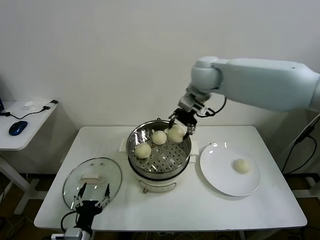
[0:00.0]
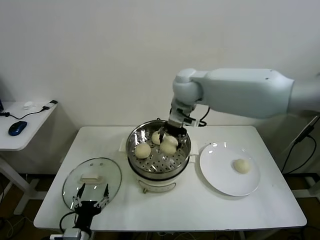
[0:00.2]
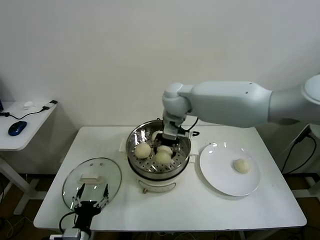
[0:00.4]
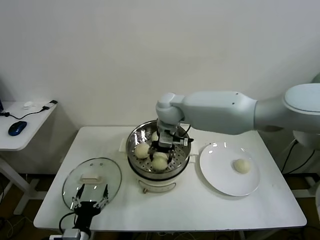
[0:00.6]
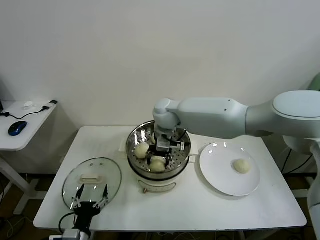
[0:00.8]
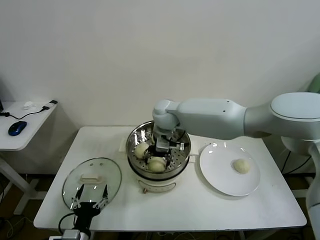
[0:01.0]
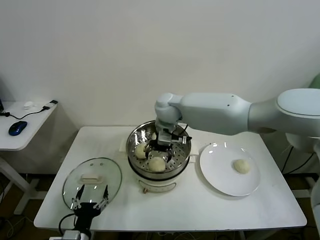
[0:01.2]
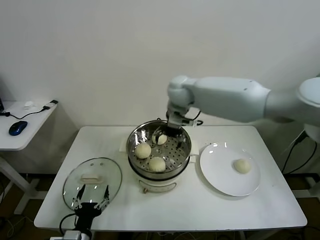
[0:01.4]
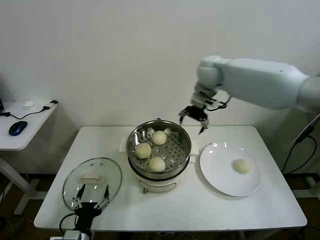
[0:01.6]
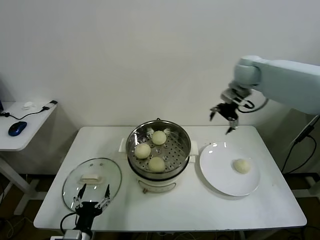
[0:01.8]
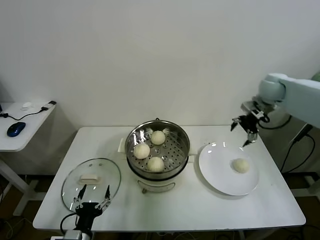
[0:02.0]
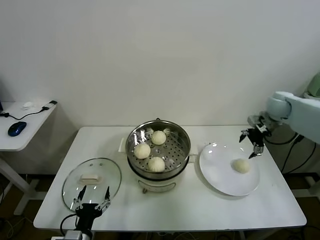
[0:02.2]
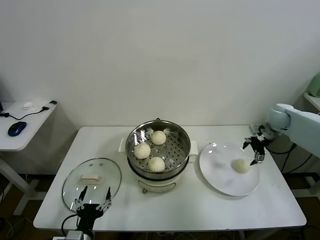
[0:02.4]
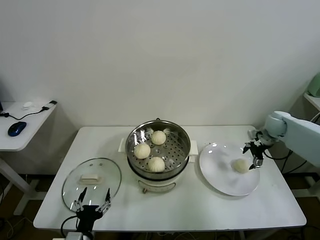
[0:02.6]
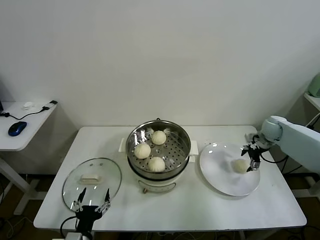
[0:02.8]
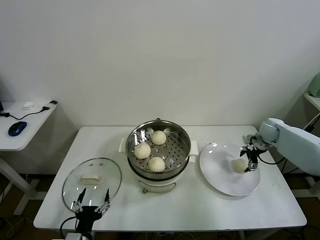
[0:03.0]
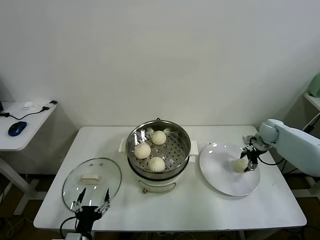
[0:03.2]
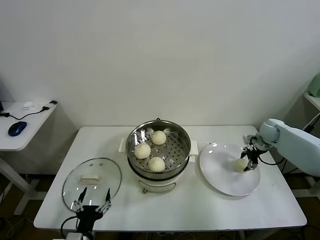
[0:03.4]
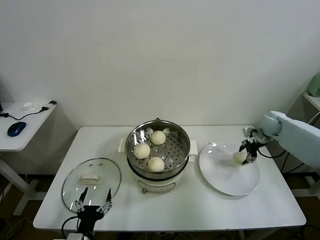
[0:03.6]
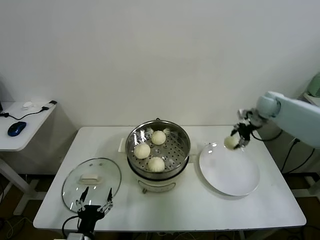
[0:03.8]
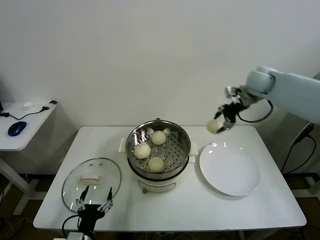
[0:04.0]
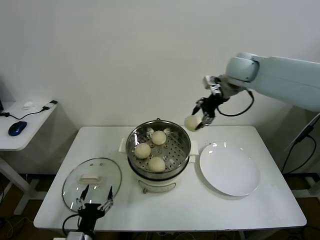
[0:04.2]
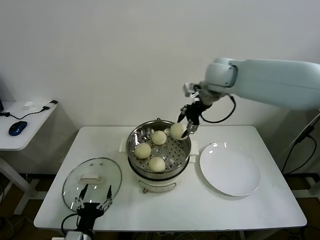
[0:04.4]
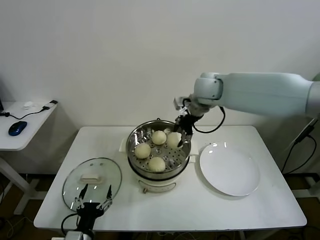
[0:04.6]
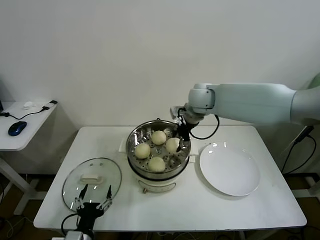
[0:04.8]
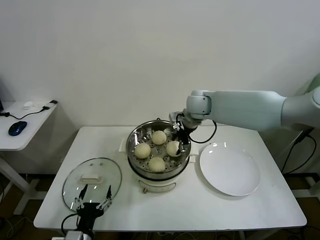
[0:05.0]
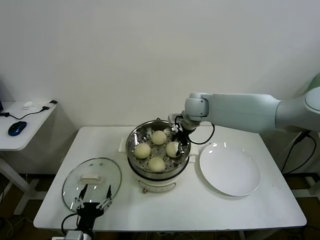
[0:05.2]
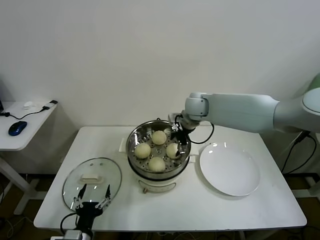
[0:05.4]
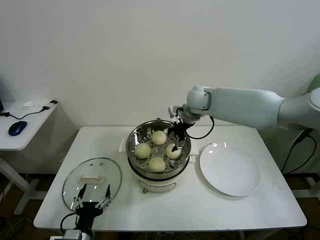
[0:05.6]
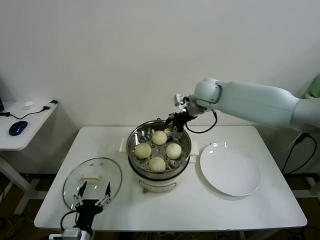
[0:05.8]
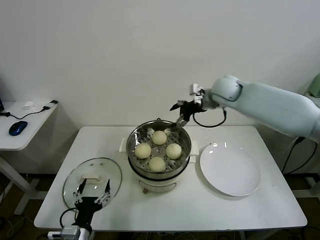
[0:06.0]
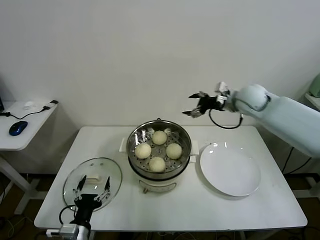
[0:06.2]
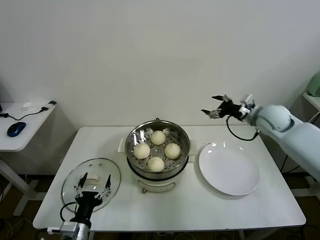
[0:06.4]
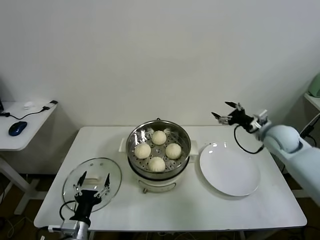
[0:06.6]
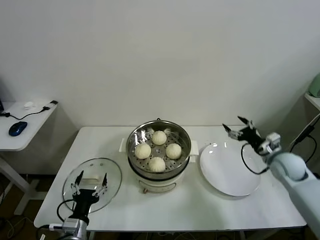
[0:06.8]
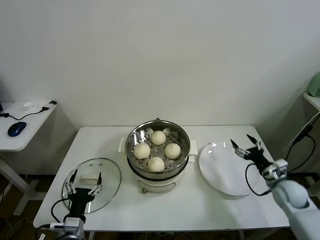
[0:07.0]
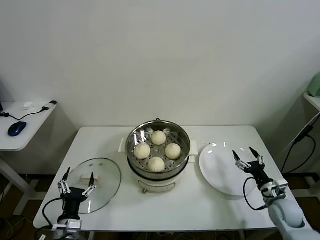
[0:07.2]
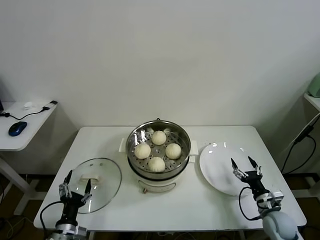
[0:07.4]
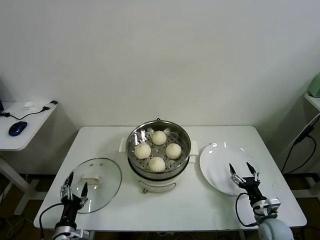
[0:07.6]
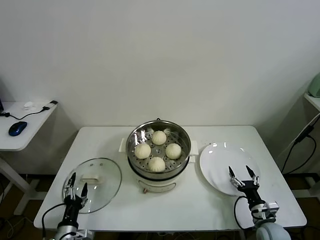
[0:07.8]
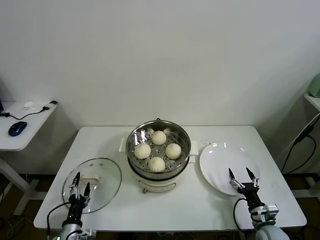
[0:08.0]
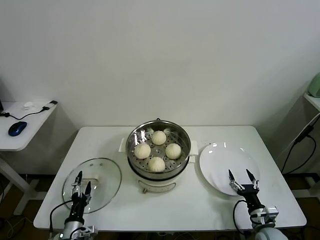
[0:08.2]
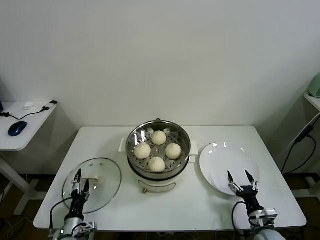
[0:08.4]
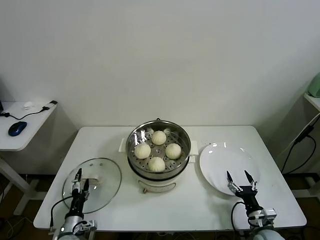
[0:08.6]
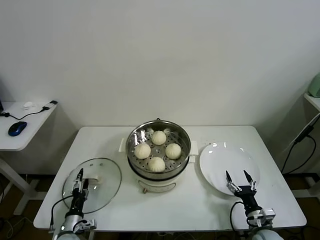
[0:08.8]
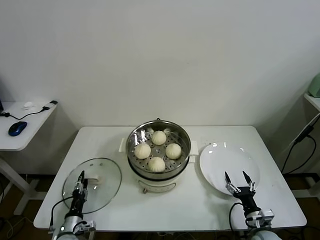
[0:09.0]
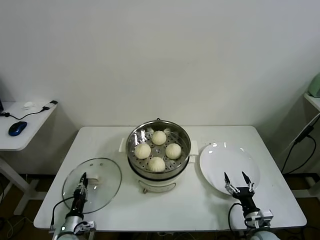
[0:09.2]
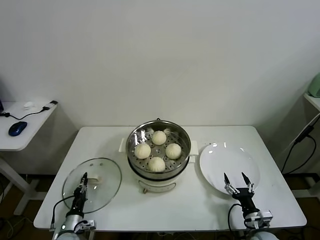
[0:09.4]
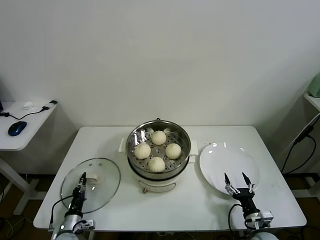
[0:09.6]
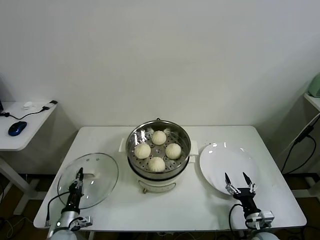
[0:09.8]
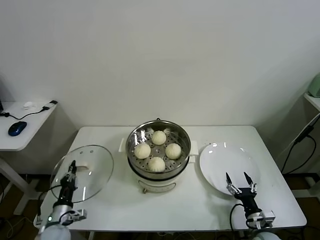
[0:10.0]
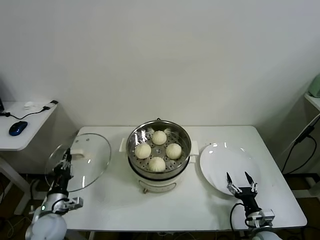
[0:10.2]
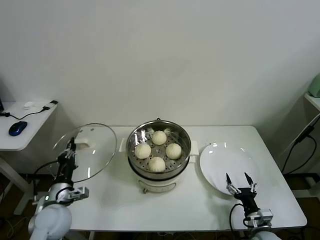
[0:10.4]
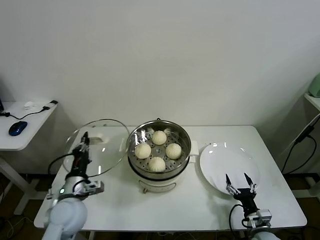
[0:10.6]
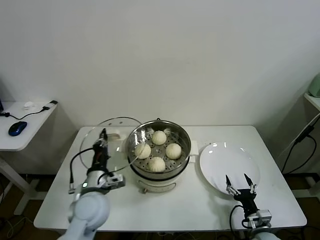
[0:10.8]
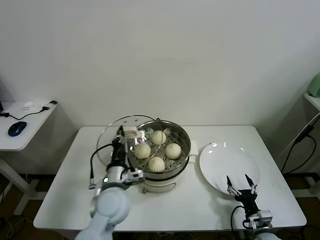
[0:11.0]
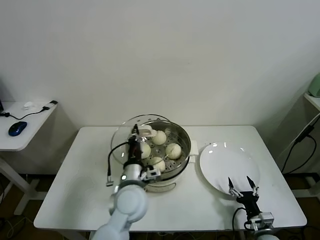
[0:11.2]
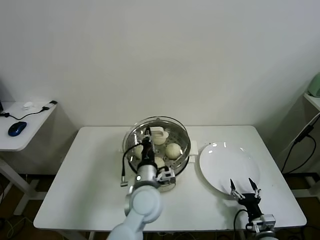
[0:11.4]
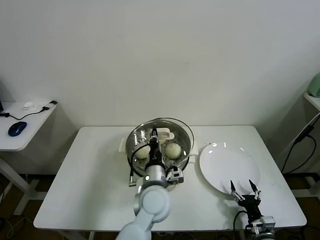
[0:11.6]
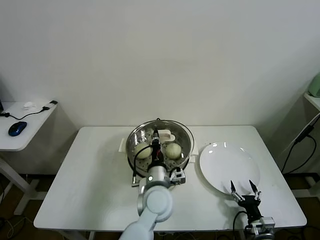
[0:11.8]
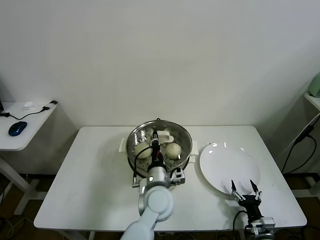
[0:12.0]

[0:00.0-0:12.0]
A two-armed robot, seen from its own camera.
Task of the whole recording: take steamed baozi put them in steamer.
Step, 0:00.0 to 0:01.0: Place the baozi on the steamer with right gripper.
Step, 0:01.2 to 0:03.4: Grasp the baozi in the plate with right gripper.
Step, 0:03.6 to 0:05.6: Place the baozi on the steamer with right gripper.
Step, 0:05.8 to 0:09.4: Grasp the pot lid with left gripper.
0:00.0 to 0:01.6: The right gripper travels to the right and forward by roughly 10 cm, and opens up.
0:01.6 to 0:03.0: The right gripper heads to the right and downward, covering roughly 35 cm.
0:03.0 to 0:04.4: The right gripper is displaced to the left and upward by roughly 35 cm, and closes its fingers.
0:04.4 to 0:06.0: The right gripper goes about 5 cm downward, and opens.
0:06.0 to 0:07.6: The left gripper travels to the left and downward by some 10 cm. Meanwhile the right gripper is displaced downward, backward and to the right by about 50 cm.
0:07.6 to 0:09.0: The left gripper goes roughly 10 cm downward and forward, and closes its fingers, while the right gripper moves approximately 5 cm.
0:09.0 to 0:10.4: The left gripper is displaced upward by some 20 cm, and closes its fingers.
0:10.4 to 0:12.0: The left gripper moves to the right, roughly 30 cm.

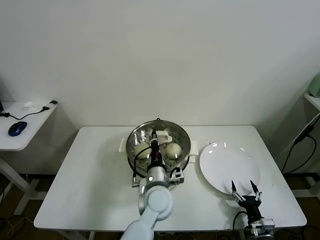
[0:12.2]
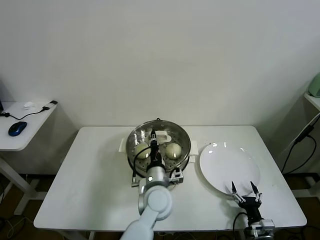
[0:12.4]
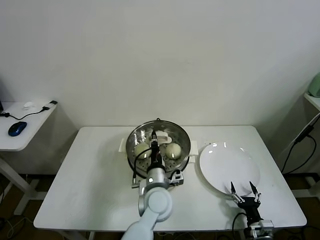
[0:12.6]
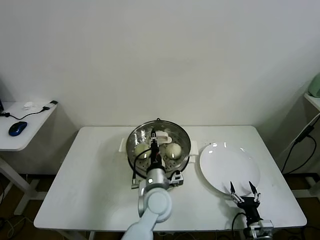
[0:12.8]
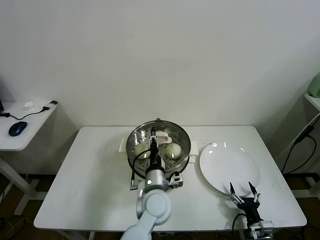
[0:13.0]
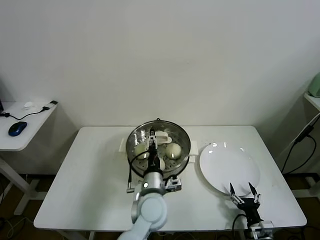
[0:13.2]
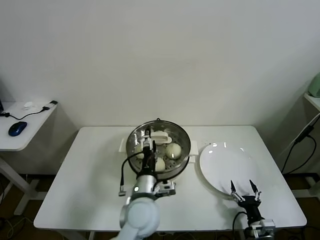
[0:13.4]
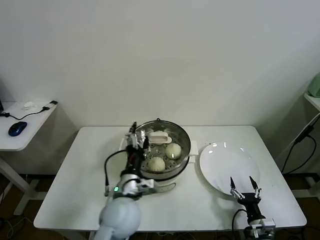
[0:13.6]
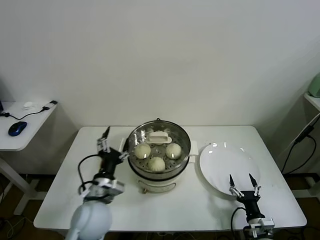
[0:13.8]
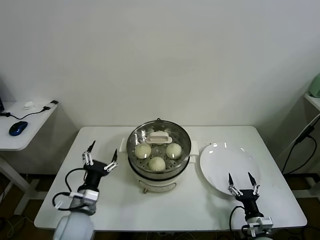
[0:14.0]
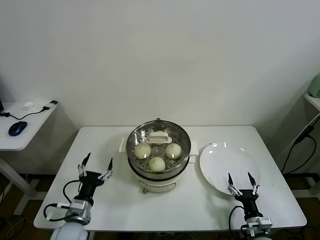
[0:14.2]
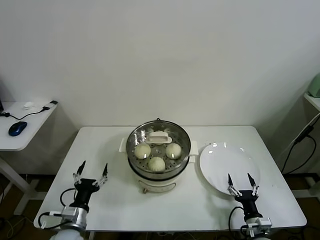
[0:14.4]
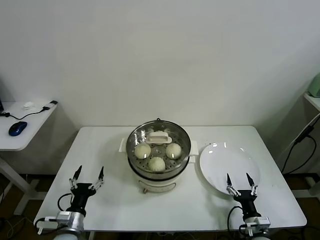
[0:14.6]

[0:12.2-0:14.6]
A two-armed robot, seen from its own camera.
Task of the whole recording: take steamed baozi put them in steamer.
0:12.2 to 0:13.4: The left gripper ends up about 5 cm from where it was, and opens.
0:13.4 to 0:14.6: The left gripper shifts approximately 30 cm to the left and downward.
